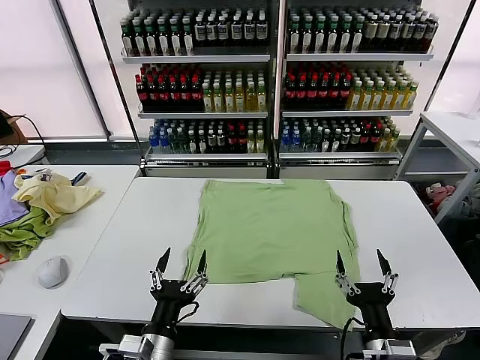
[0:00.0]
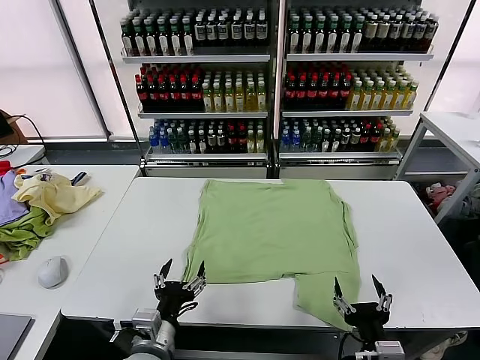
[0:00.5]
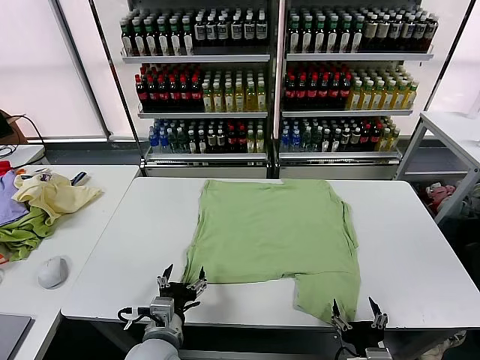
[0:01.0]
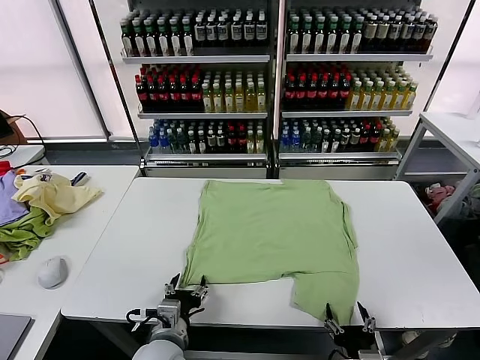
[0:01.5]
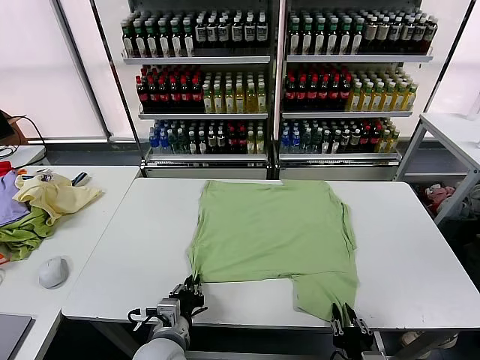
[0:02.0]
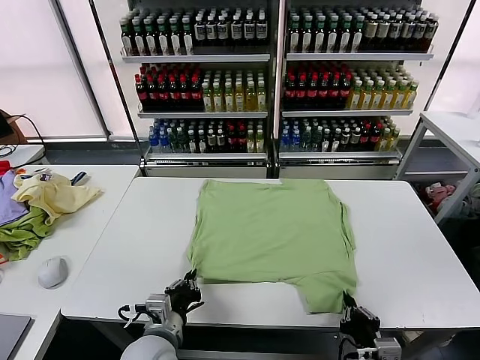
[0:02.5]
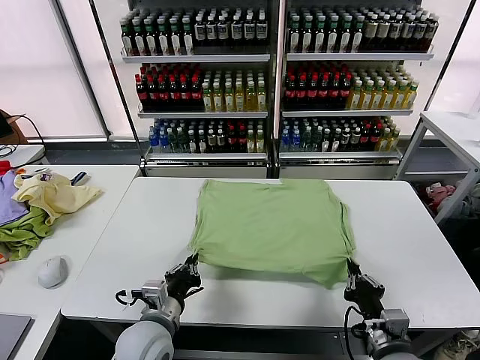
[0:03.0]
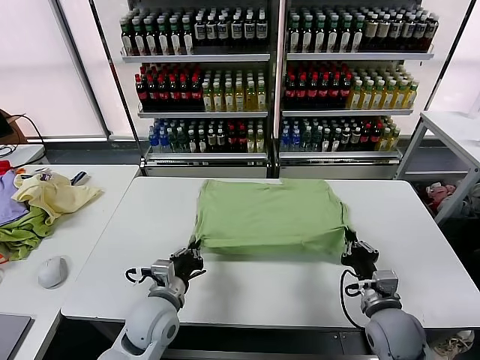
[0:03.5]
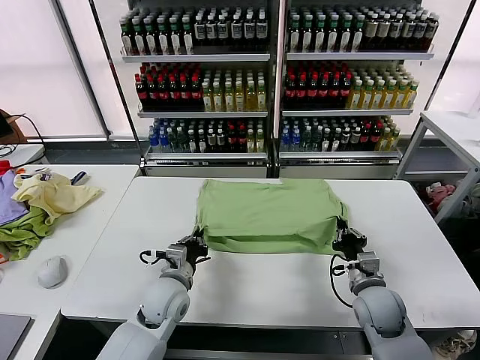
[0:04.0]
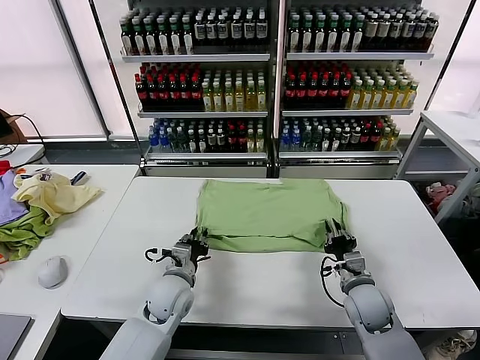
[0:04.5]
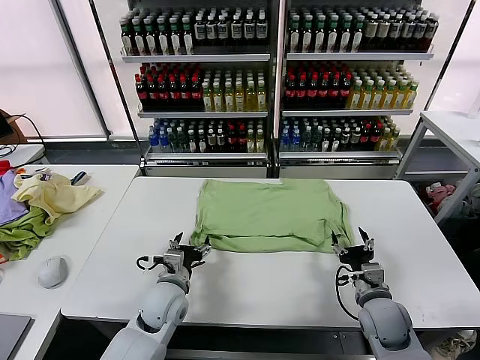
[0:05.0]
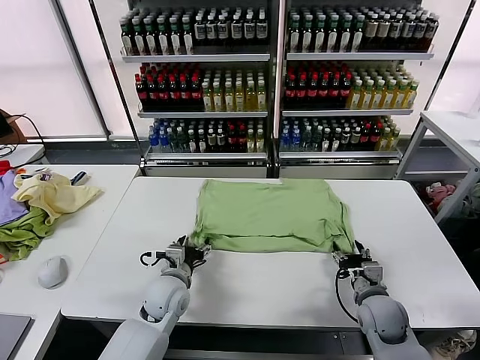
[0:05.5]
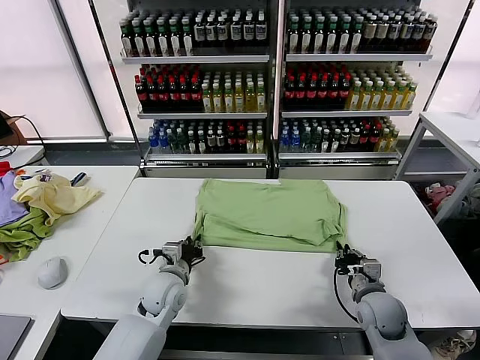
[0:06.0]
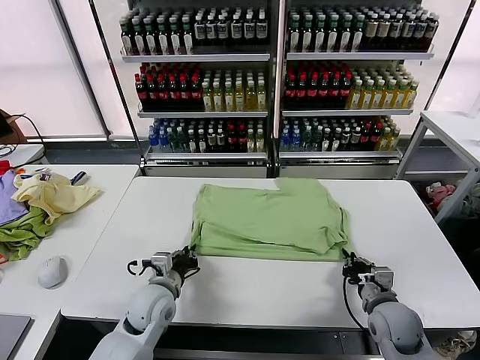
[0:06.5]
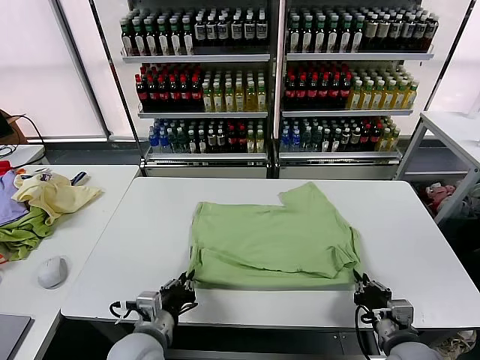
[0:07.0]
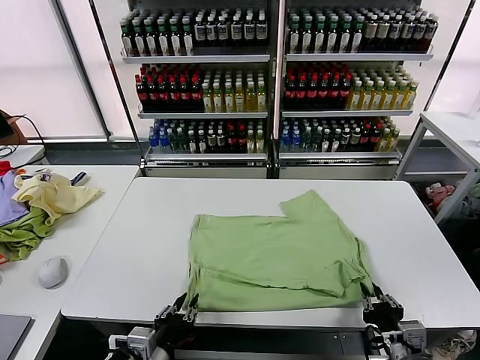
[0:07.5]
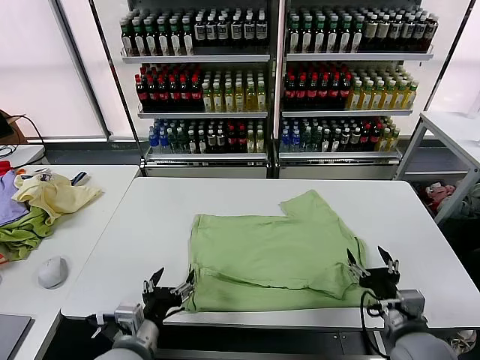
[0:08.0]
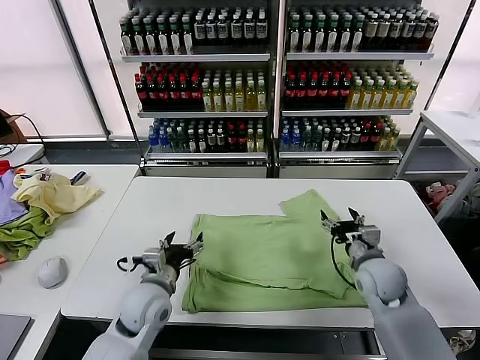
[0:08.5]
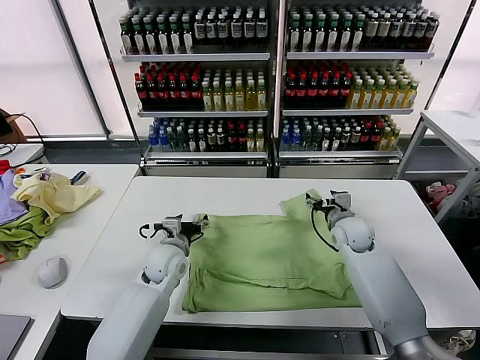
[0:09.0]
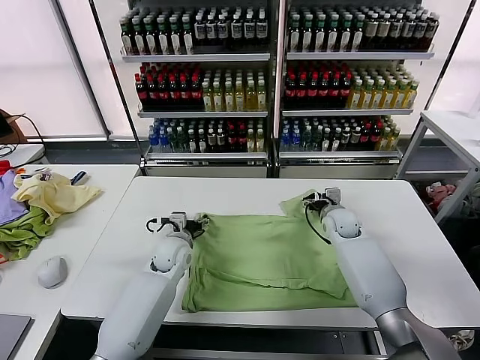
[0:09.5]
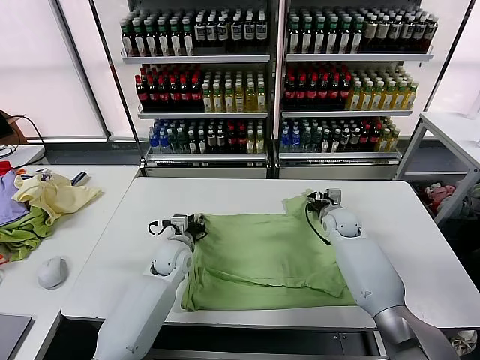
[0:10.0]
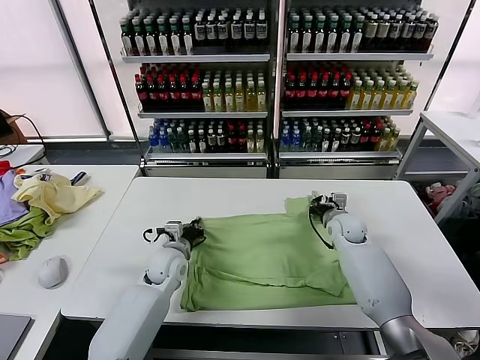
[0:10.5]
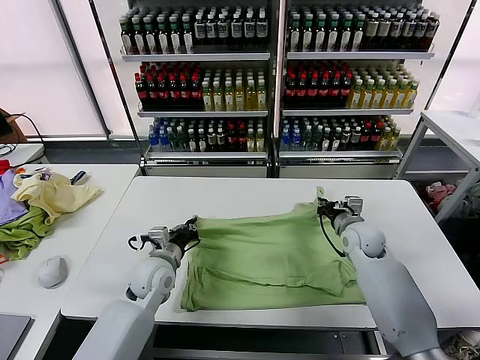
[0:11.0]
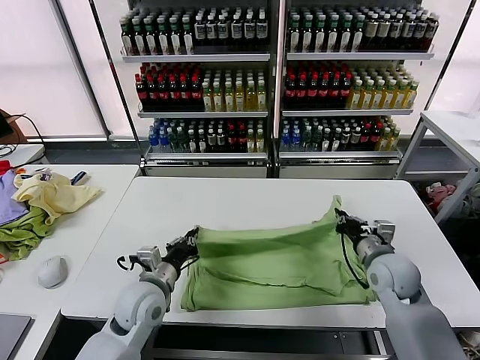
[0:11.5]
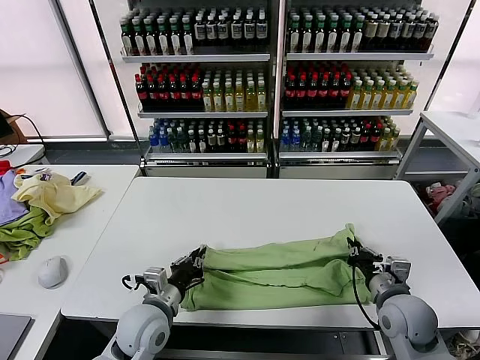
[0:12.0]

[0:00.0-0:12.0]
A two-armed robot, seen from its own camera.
Task of the whole recording: fold and organize the clothes.
Step, 0:00.0 to 0:02.0: use both grippers simultaneously to clamp the lower edge of the clothing fabric.
Step, 0:02.5 to 0:04.5: use both grippers to drag the lower edge of the fabric forward and fold it over the upper edge.
Step, 0:05.0 to 0:07.5: Drag the clothes downward with both gripper.
Step, 0:08.0 to 0:10.0: use both grippers simultaneously to clamp the upper edge of the clothing fabric.
0:02.0 to 0:04.0: The left gripper shifts approximately 10 cm forward. The right gripper shifts about 20 cm forward.
0:04.0 to 0:06.0: The left gripper opens, then closes once more. Meanwhile the right gripper opens, then closes again.
0:06.0 to 0:08.0: The left gripper moves backward and upward, roughly 20 cm, and opens its fingers, while the right gripper goes approximately 10 cm upward and backward, and opens up.
0:08.0 to 0:10.0: The grippers both shift forward by about 30 cm. The right gripper closes up. The left gripper closes its fingers.
0:10.0 to 0:12.0: The right gripper travels backward by about 25 cm, while the left gripper goes roughly 20 cm backward.

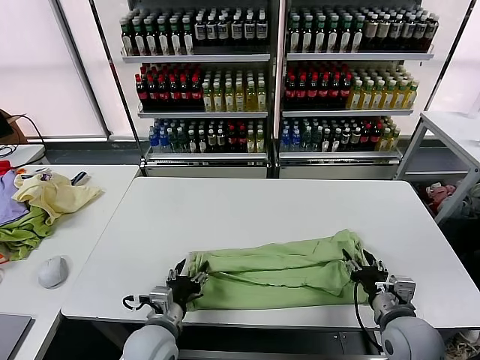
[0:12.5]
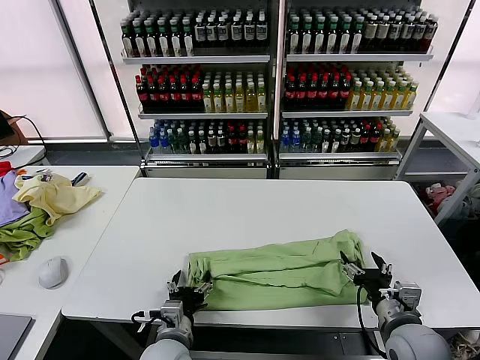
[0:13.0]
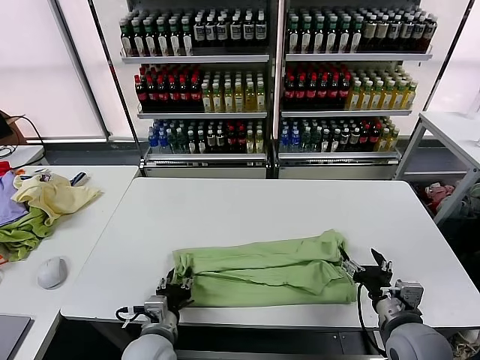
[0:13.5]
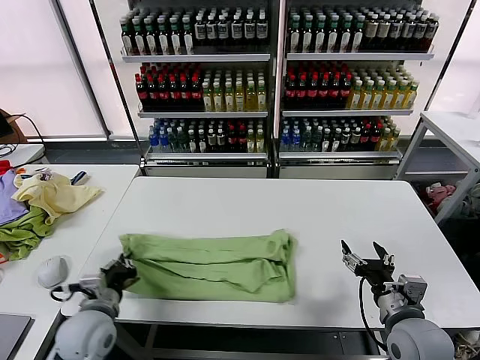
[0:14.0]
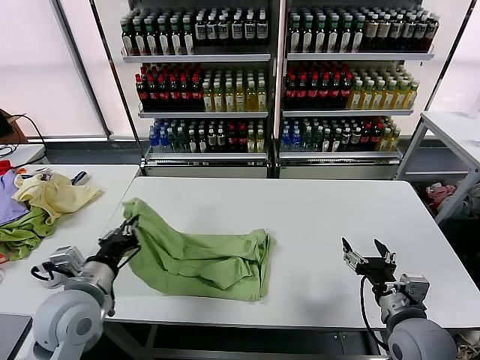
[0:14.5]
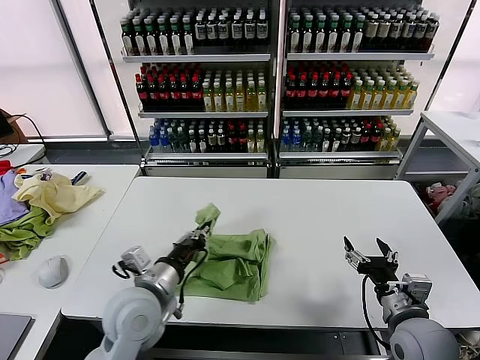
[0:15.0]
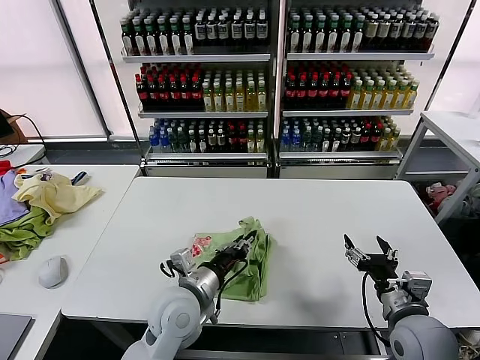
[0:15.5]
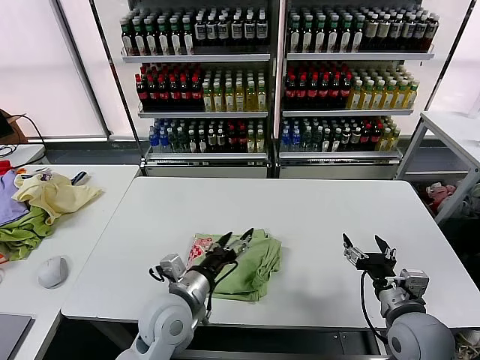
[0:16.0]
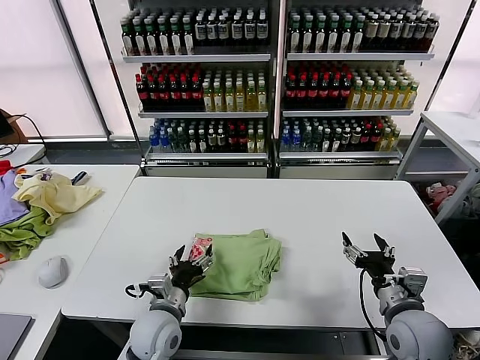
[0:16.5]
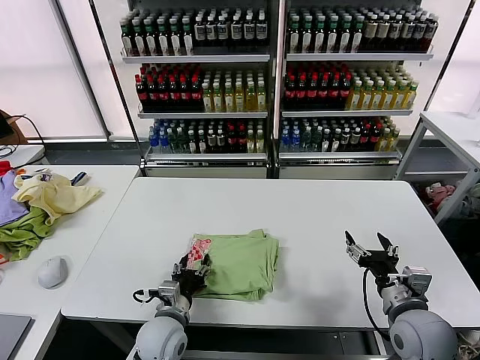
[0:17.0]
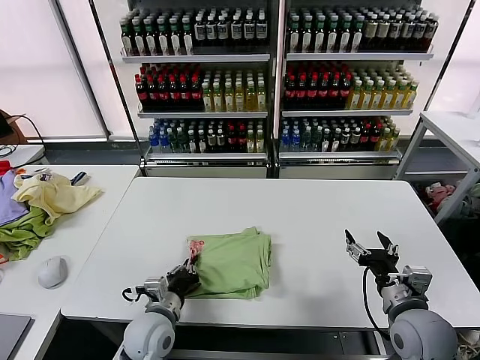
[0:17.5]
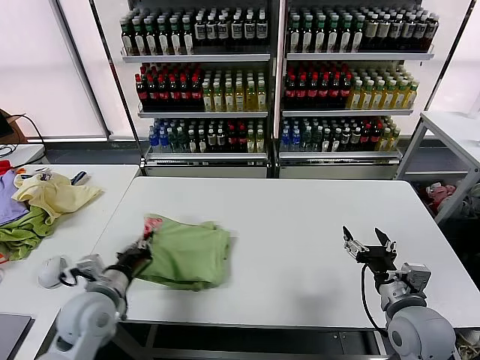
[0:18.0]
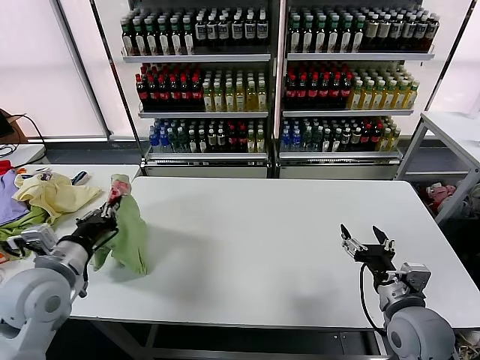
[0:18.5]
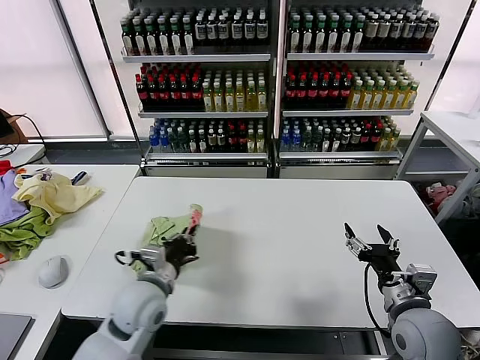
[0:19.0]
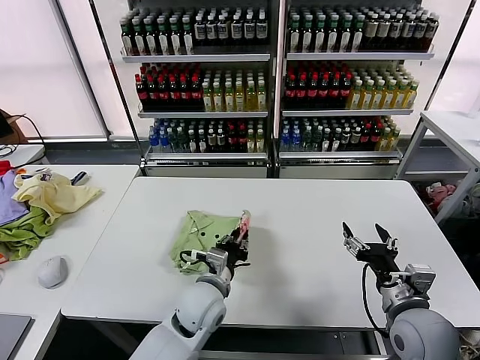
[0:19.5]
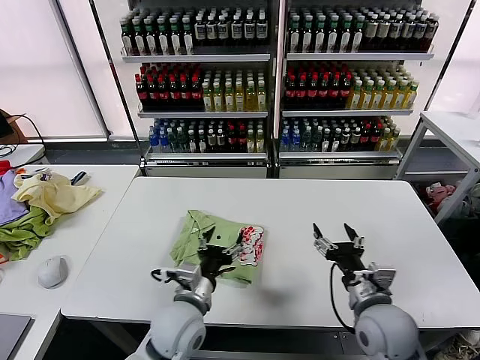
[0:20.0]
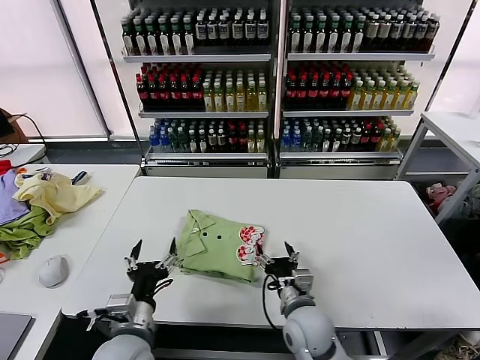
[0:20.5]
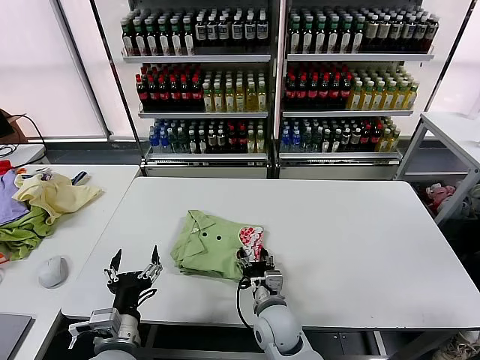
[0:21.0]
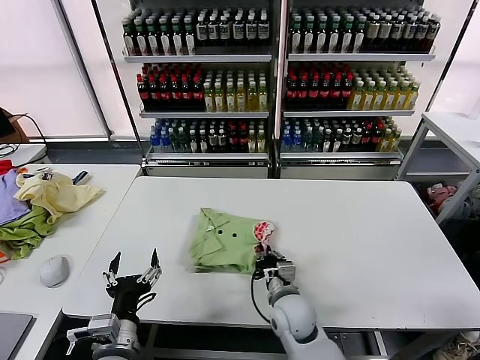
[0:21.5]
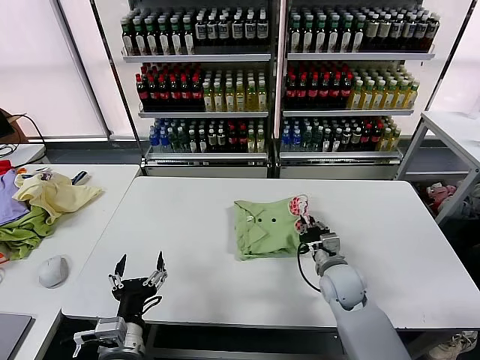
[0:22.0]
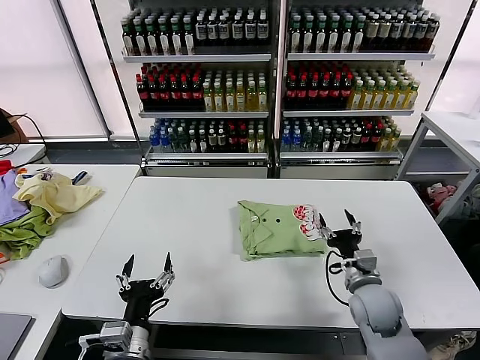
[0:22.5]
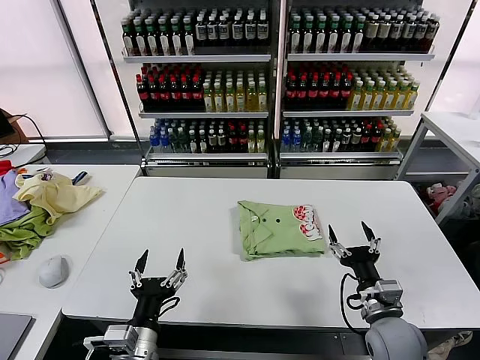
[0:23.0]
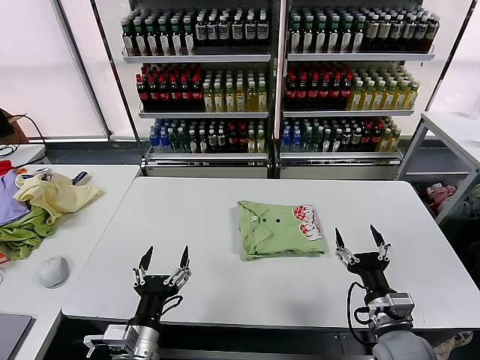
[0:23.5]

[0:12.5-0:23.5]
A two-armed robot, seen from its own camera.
Task of the whole recording: fold and organize the clothes.
Step, 0:12.5 to 0:13.5: use the left gripper to clamp the left edge of the fabric.
Step, 0:14.0 to 0:15.5: use the left gripper to drag the left edge of the fabric to the left and folds it over the right edge.
Step, 0:16.0 to 0:19.5: Flip the folded clothes over with left gripper.
Step, 0:20.0 to 0:22.0: Drag the clothes to the center of the table.
0:12.5 to 0:14.5: The left gripper travels upward and to the left by about 15 cm, and closes up.
0:14.5 to 0:16.0: The left gripper travels to the right and downward by some 15 cm, and opens its fingers.
0:16.0 to 0:18.0: The left gripper heads to the left, covering about 15 cm, and closes up.
0:18.0 to 0:20.0: The right gripper shifts approximately 5 cm to the left. The left gripper travels to the right by about 20 cm, and opens up.
0:20.0 to 0:21.5: The left gripper is displaced to the left and backward by some 15 cm. Meanwhile the right gripper moves to the left, downward and forward, about 20 cm, and closes up.
0:21.5 to 0:23.5: The right gripper is displaced to the right and backward by roughly 20 cm, and opens up.
